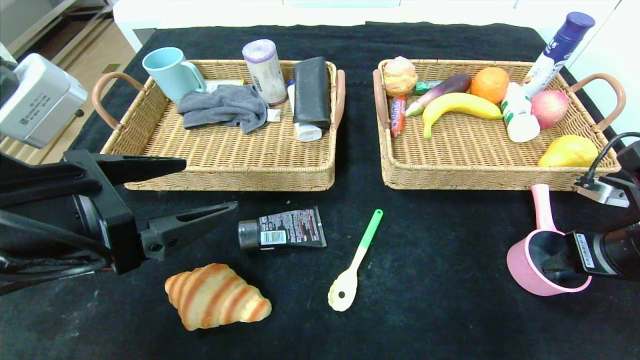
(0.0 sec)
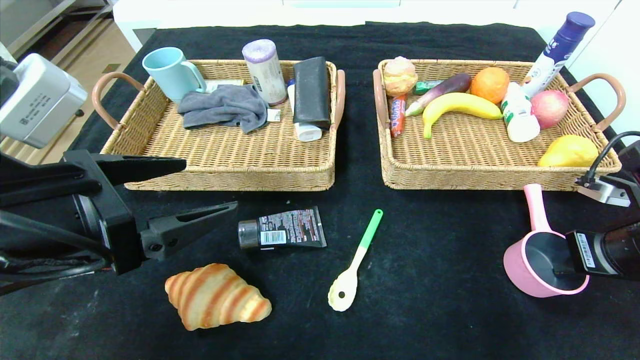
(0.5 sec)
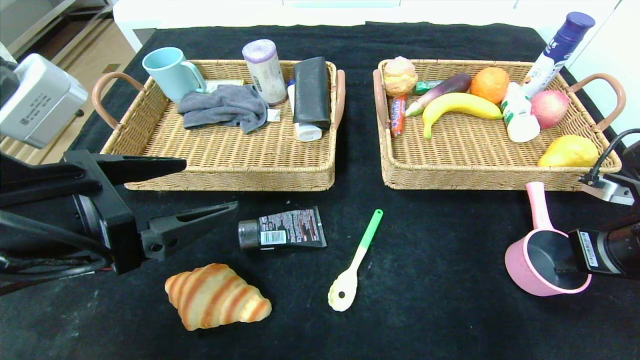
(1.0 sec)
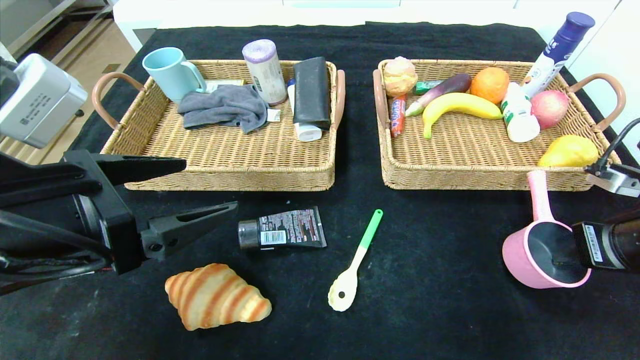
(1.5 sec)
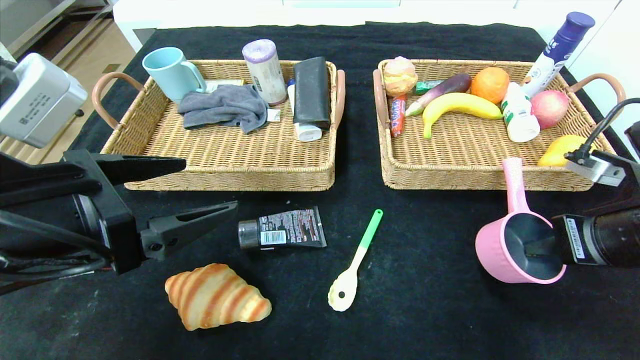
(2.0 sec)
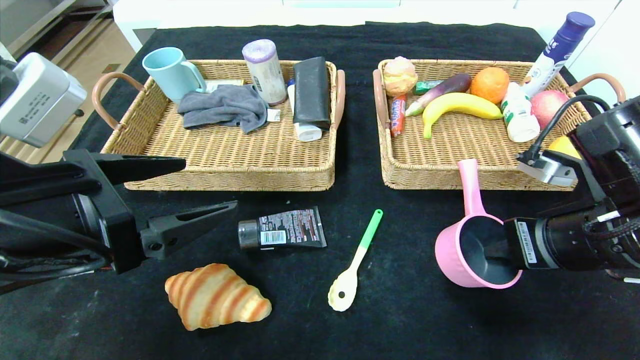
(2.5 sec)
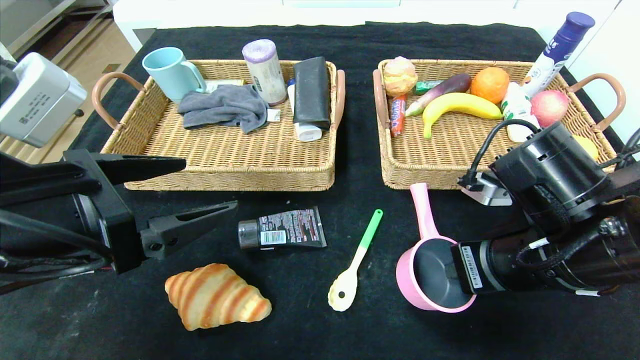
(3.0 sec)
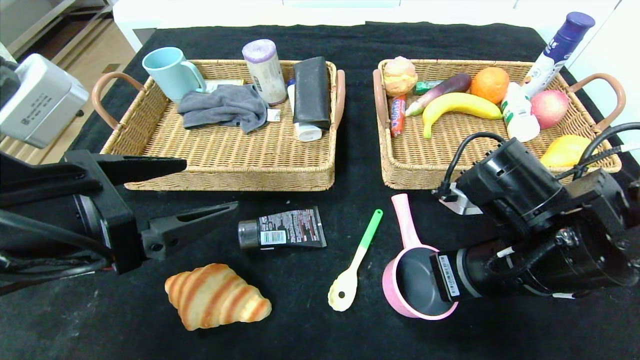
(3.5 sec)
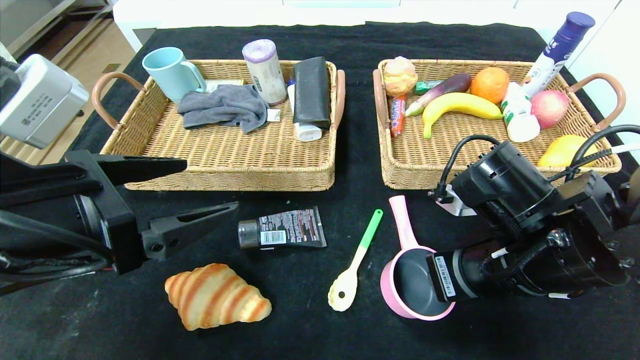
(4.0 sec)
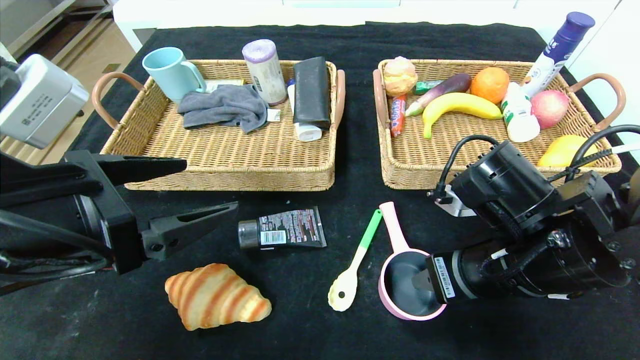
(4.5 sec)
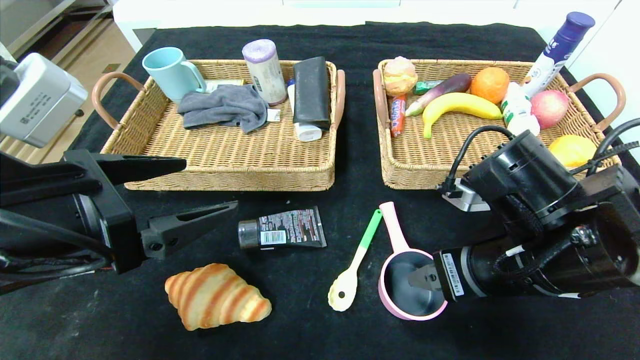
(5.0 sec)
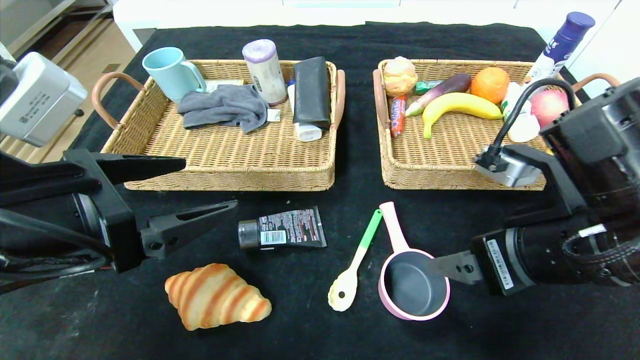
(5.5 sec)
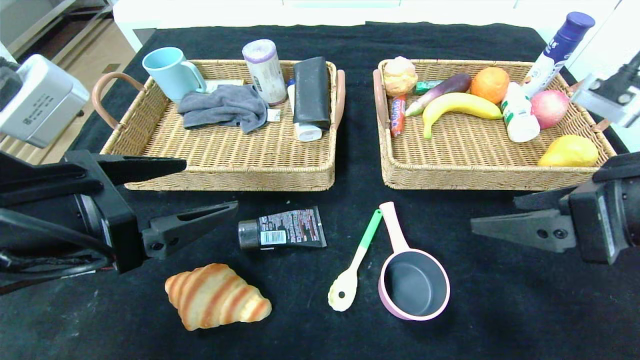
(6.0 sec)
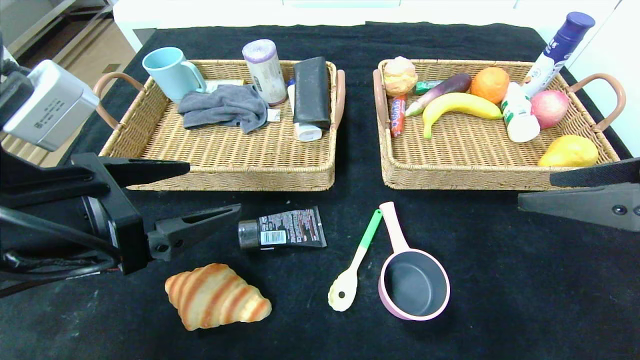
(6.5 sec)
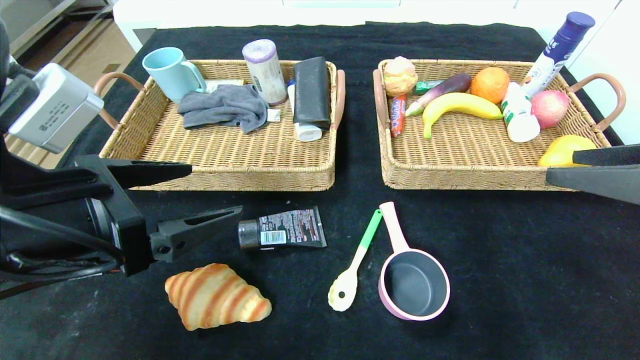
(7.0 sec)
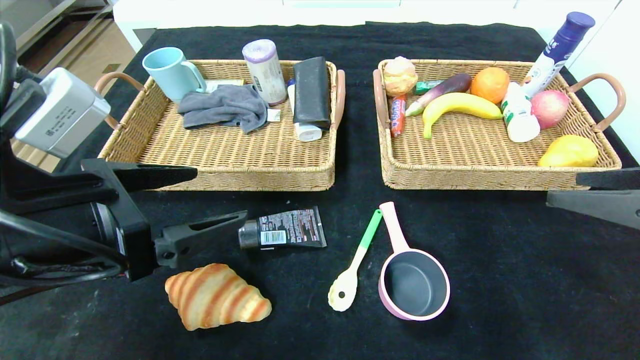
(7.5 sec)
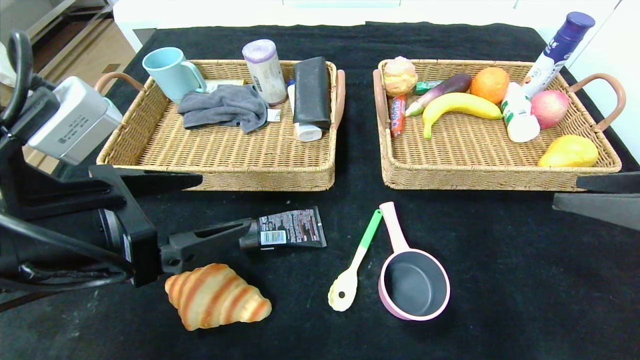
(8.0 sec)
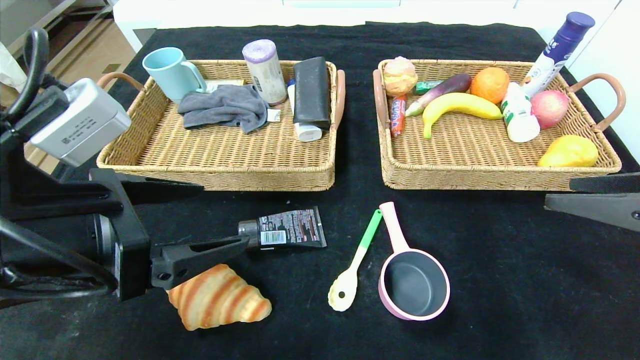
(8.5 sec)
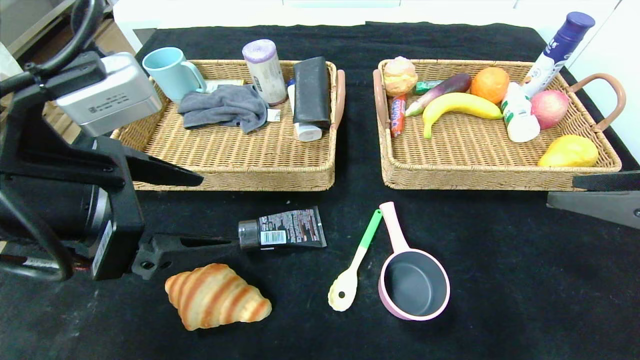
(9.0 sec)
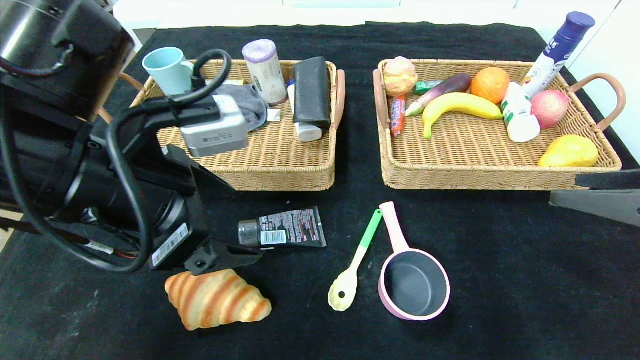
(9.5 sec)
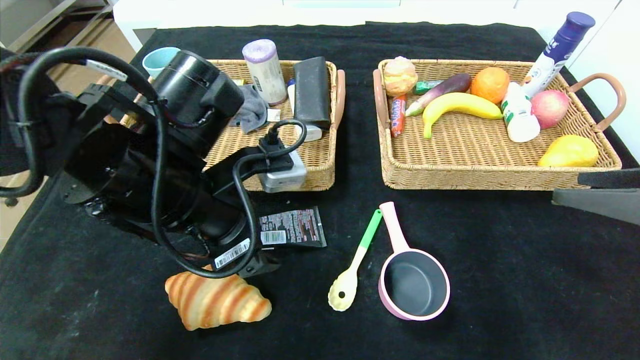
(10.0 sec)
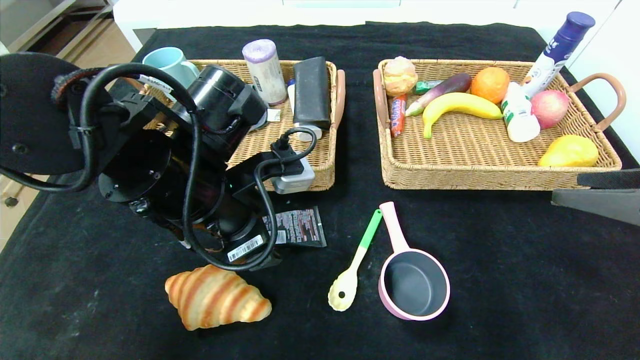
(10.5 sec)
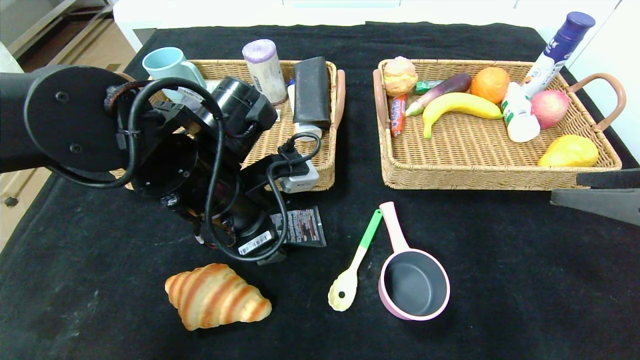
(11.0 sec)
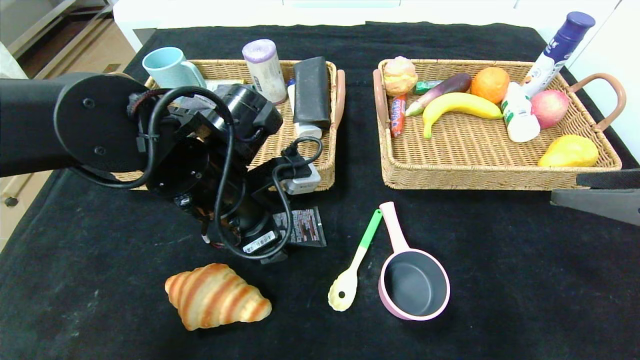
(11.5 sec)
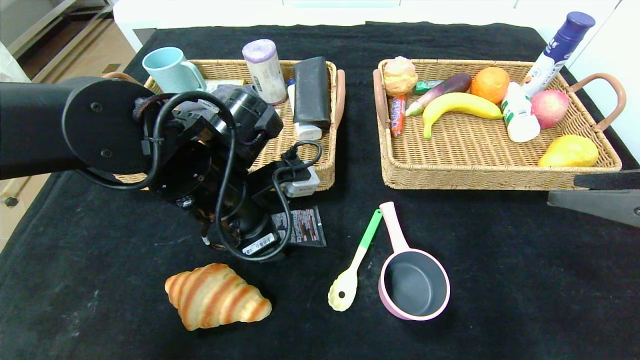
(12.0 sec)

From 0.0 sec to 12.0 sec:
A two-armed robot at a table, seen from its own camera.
Step, from 0.0 sec to 5.5 sec: Place the pink pot in the center of the table.
From 0.0 sec to 2.0 sec: The right gripper moves roughly 5 cm, and closes.
From 2.0 sec to 4.0 sec: The right gripper shifts roughly 15 cm to the left.
From 4.0 sec to 6.0 sec: The right gripper travels upward and to the right by some 10 cm, and opens its fingers.
From 6.0 sec to 8.0 sec: The right gripper shifts some 10 cm to the right.
From 8.0 sec to 10.0 sec: The left gripper is displaced to the right and forward by roughly 10 cm.
From 10.0 sec to 12.0 sec: The left gripper ends up about 5 cm from where it was.

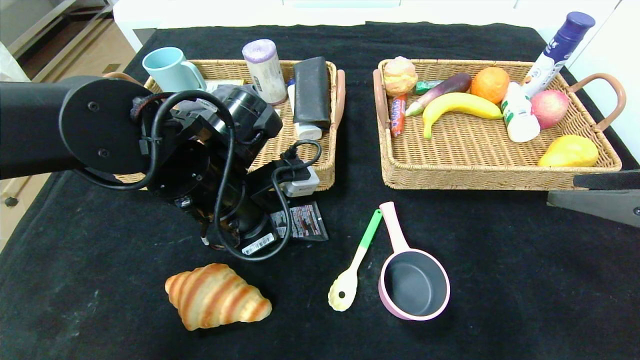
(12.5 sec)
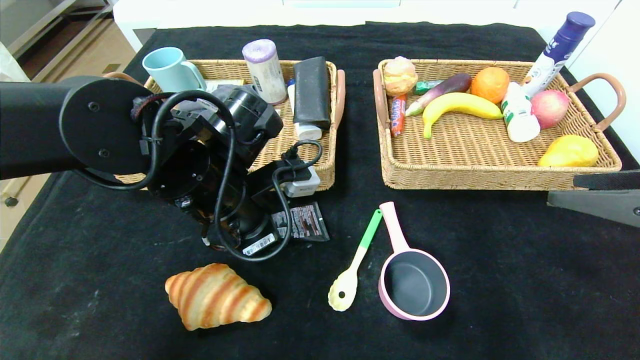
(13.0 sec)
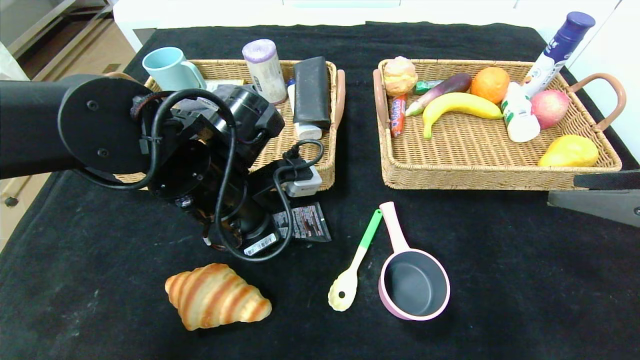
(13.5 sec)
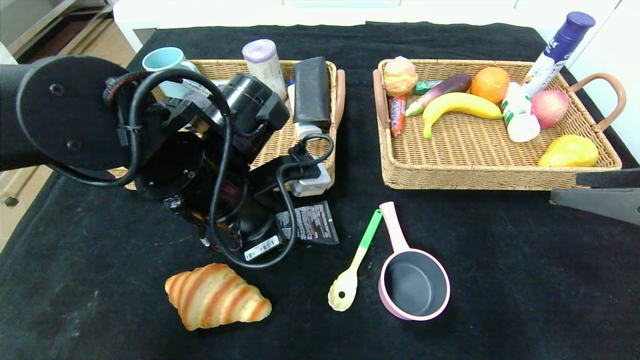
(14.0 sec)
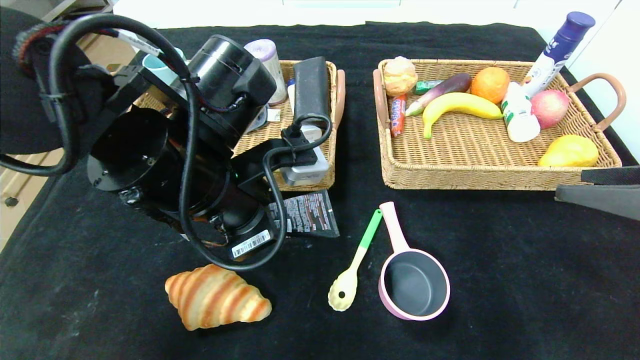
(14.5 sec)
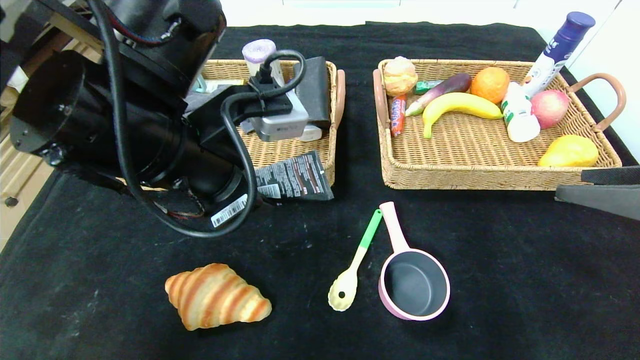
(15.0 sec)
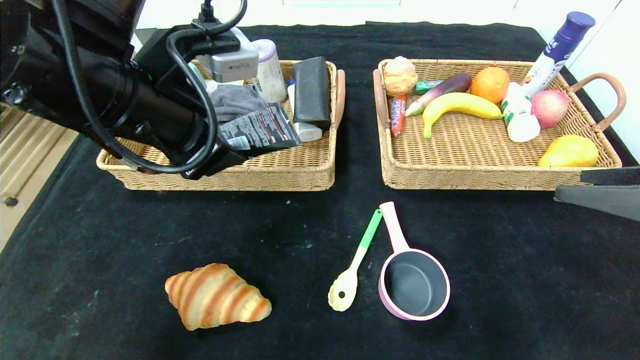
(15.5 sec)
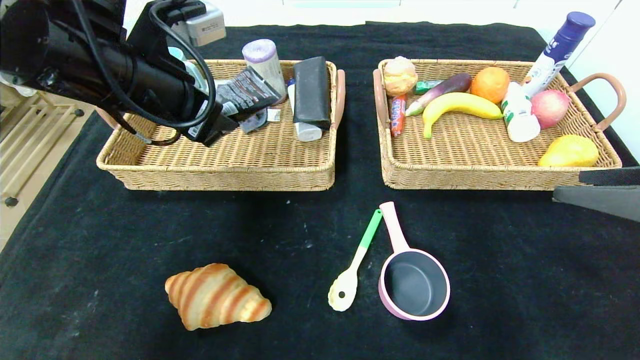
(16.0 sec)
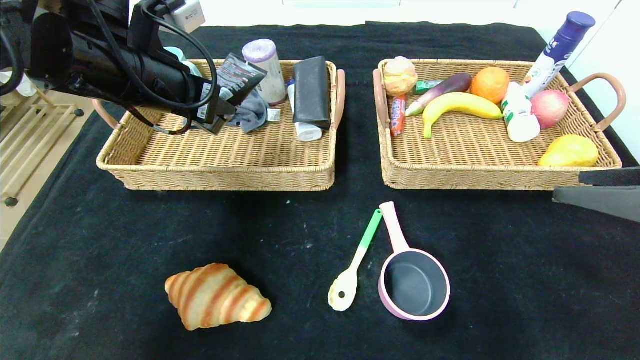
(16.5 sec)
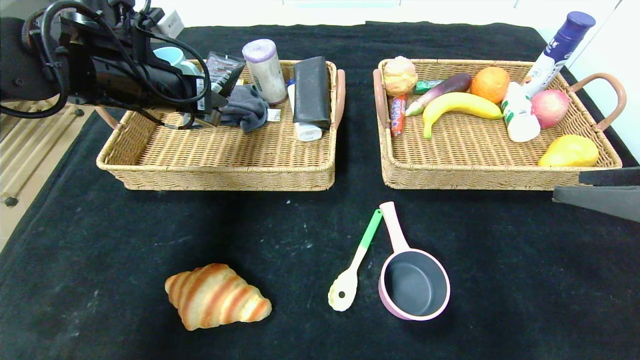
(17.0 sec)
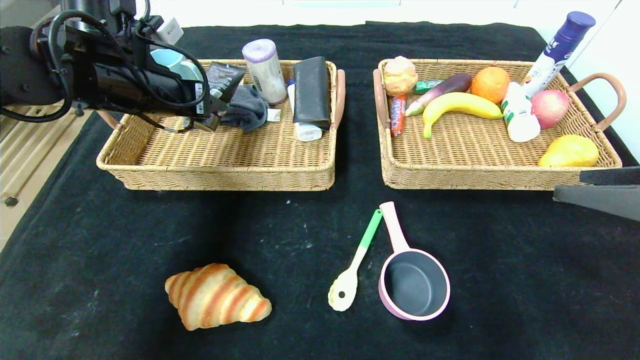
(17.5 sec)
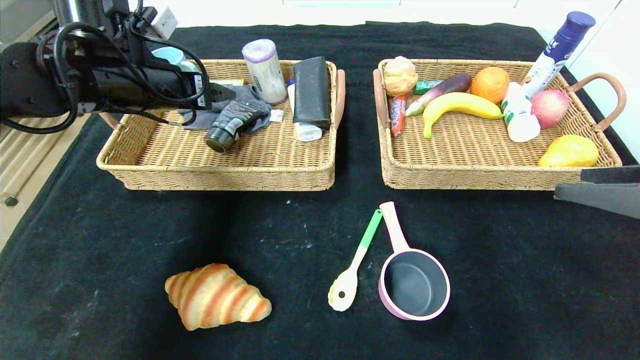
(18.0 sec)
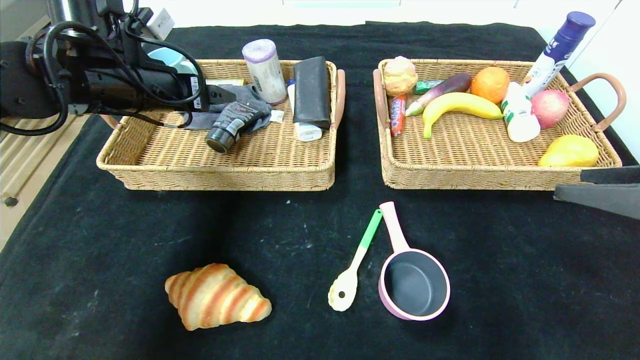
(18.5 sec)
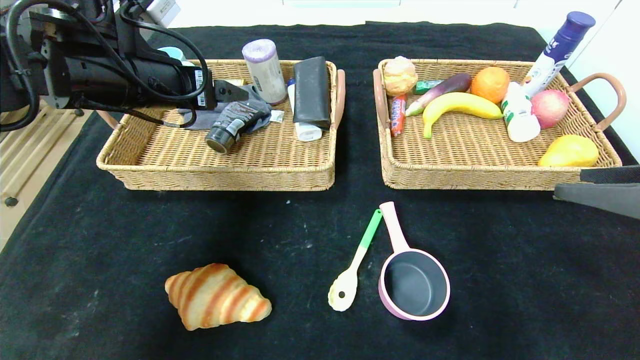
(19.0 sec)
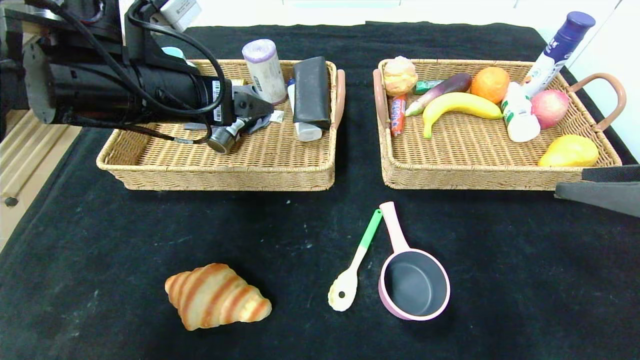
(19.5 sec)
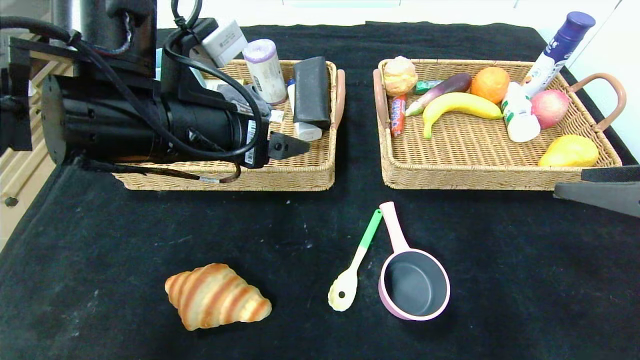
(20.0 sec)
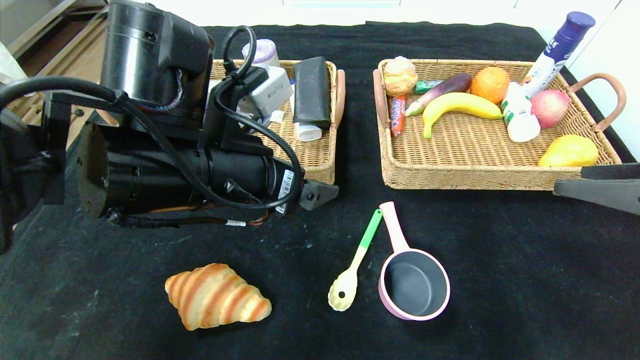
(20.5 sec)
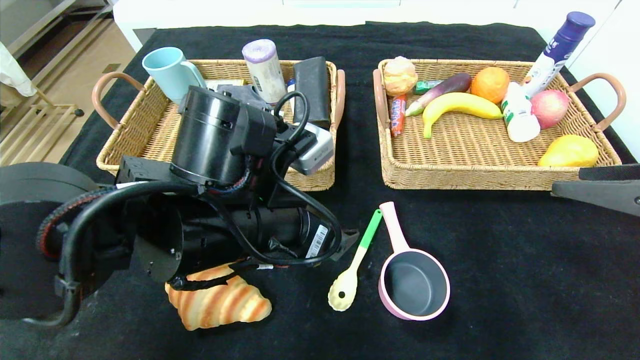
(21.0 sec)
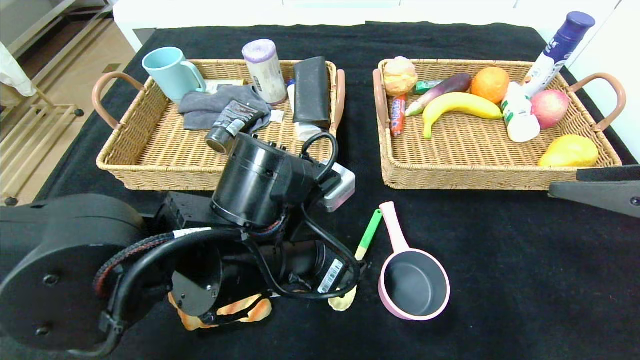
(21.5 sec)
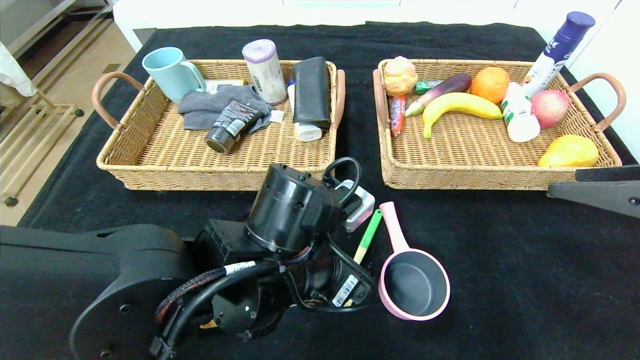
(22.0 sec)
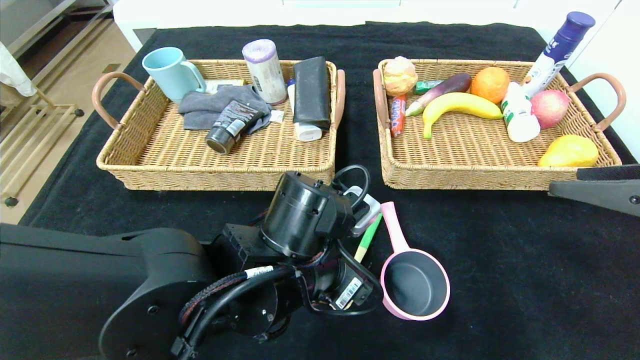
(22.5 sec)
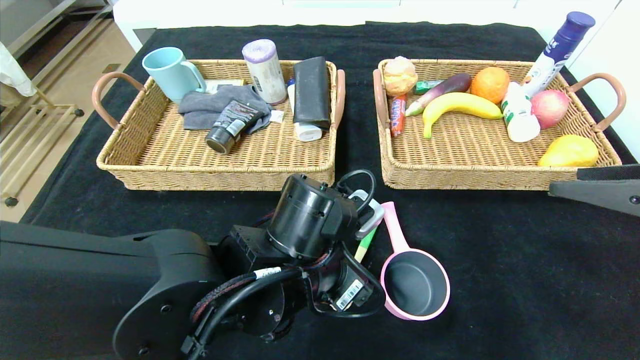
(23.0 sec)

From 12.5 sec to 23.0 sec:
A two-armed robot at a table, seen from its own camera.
Step, from 12.5 sec to 18.0 sec: Grasp the soft cleanser and put it in the left basket.
From 12.5 sec to 14.5 sec: The left gripper moves some 5 cm.
From 14.5 sec to 16.5 sec: The left gripper moves to the left, forward and upward, roughly 15 cm.
From 16.5 sec to 19.0 sec: The left gripper opens.
From 19.0 sec to 21.0 sec: The left gripper travels to the right, backward and downward by about 20 cm.
From 21.0 sec to 23.0 sec: The left gripper moves downward, about 5 cm.
